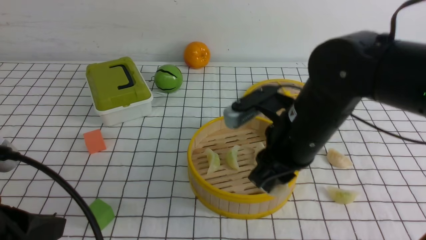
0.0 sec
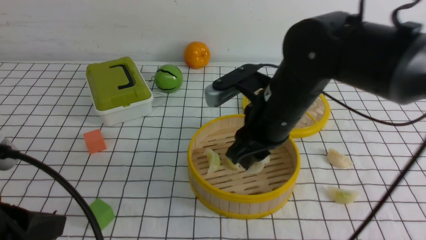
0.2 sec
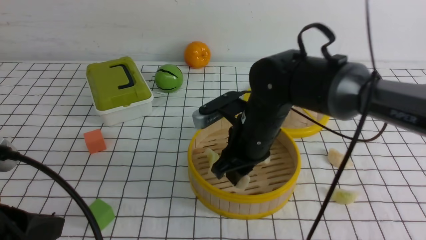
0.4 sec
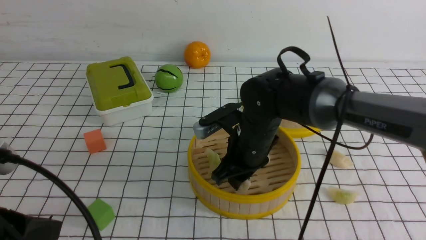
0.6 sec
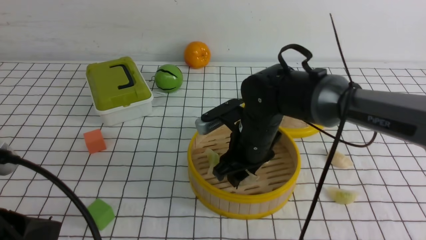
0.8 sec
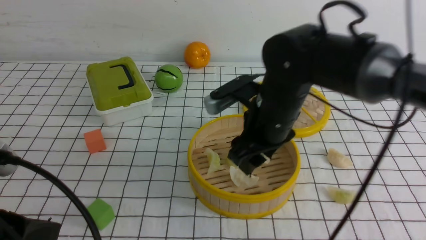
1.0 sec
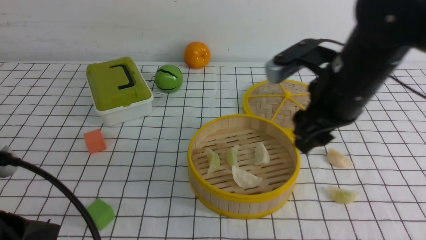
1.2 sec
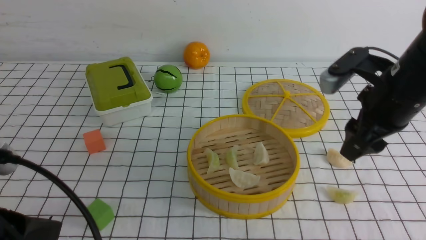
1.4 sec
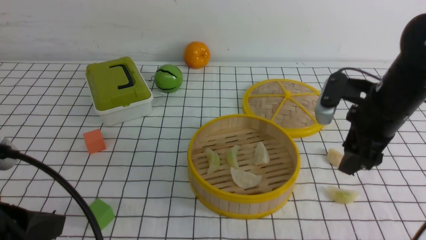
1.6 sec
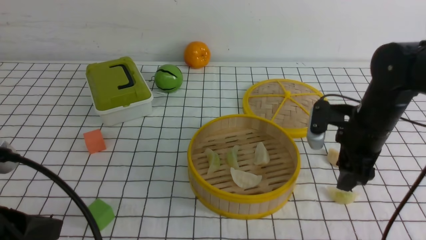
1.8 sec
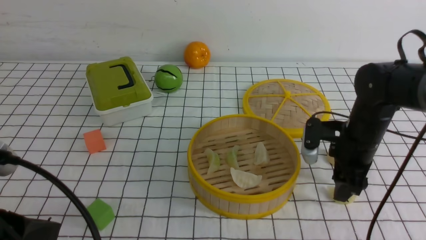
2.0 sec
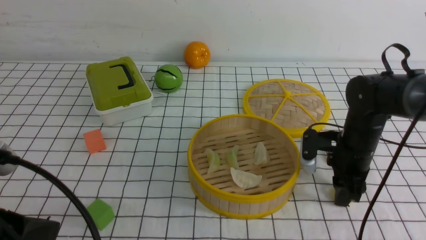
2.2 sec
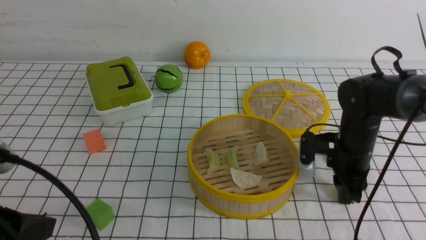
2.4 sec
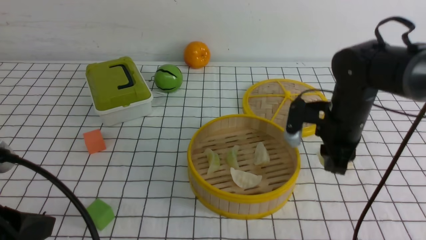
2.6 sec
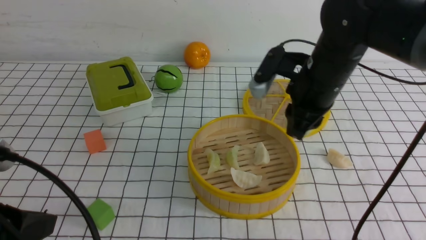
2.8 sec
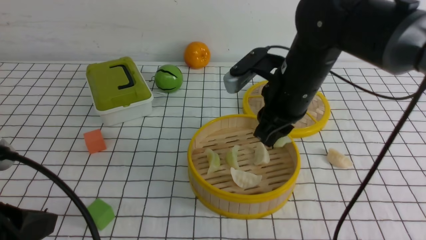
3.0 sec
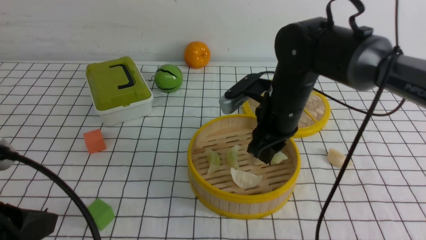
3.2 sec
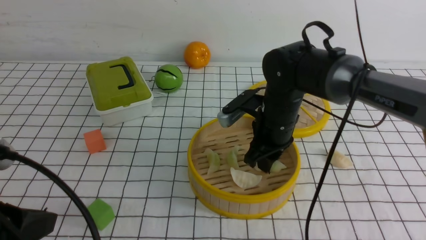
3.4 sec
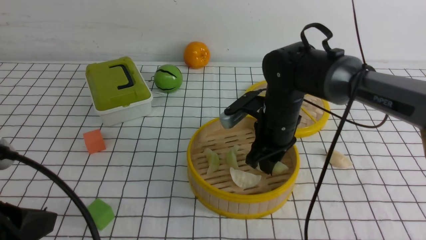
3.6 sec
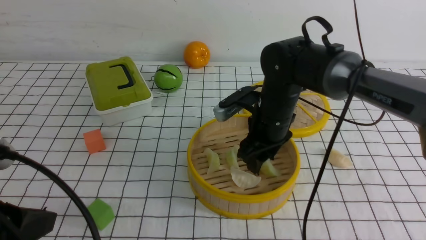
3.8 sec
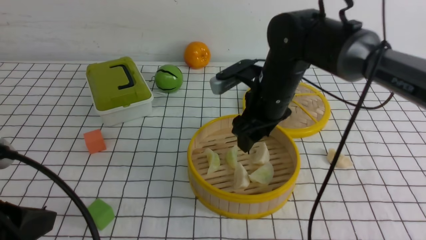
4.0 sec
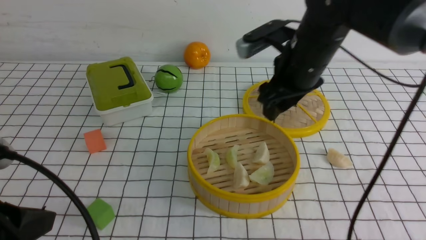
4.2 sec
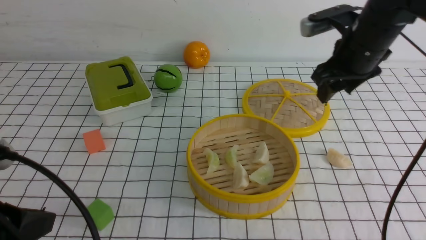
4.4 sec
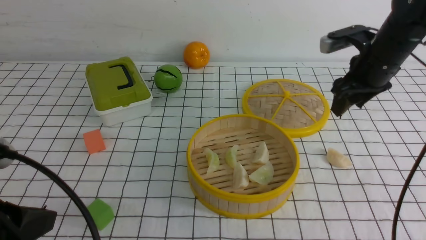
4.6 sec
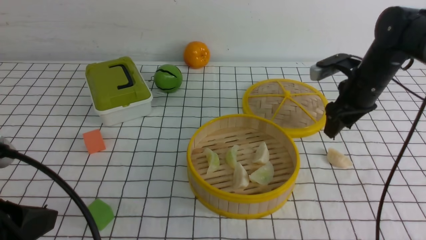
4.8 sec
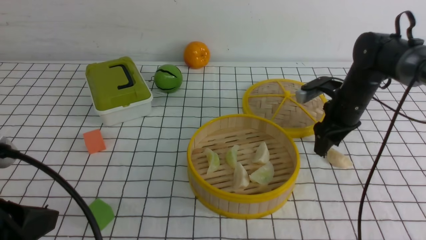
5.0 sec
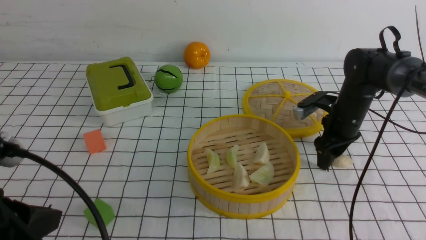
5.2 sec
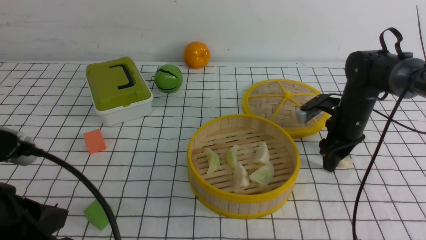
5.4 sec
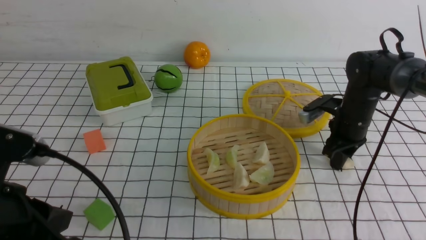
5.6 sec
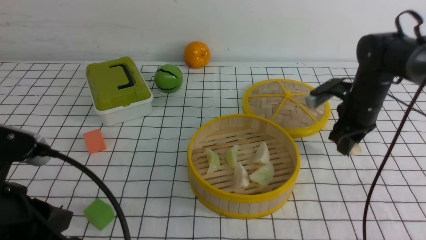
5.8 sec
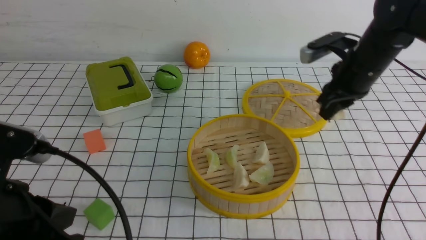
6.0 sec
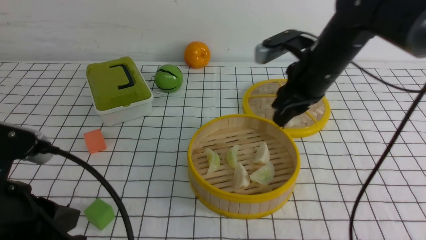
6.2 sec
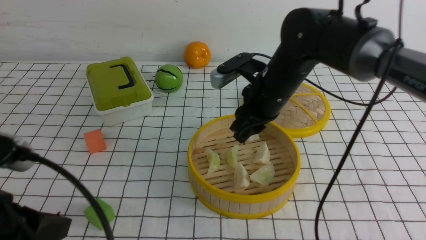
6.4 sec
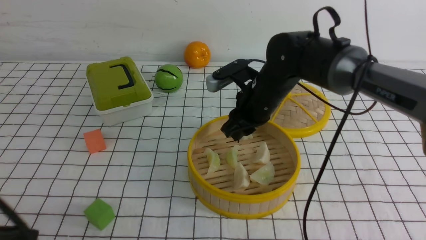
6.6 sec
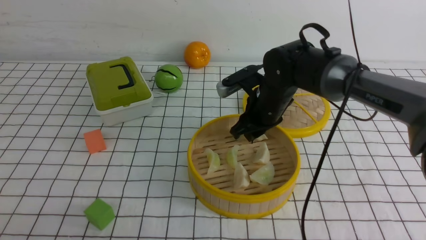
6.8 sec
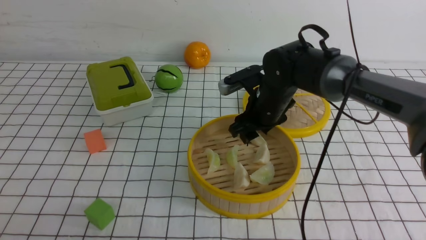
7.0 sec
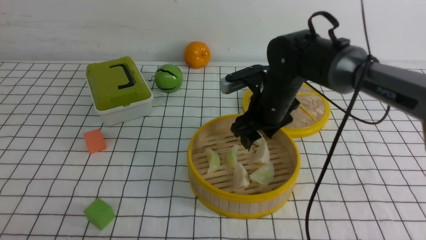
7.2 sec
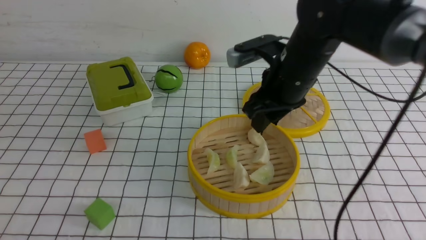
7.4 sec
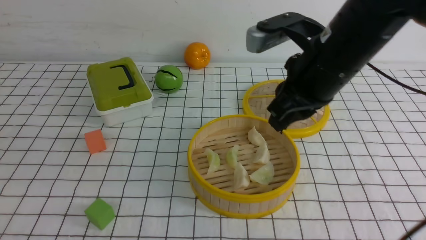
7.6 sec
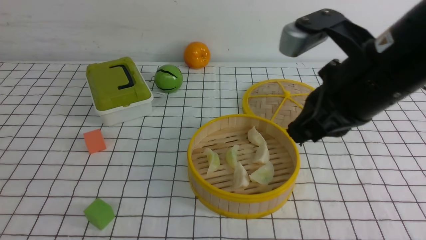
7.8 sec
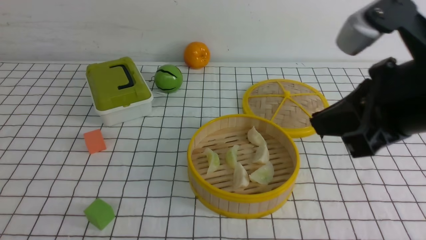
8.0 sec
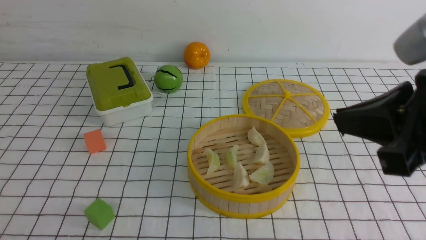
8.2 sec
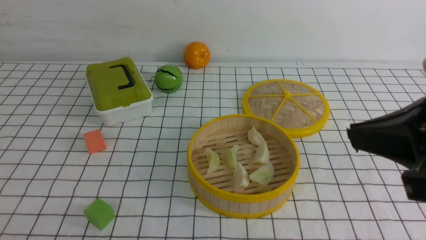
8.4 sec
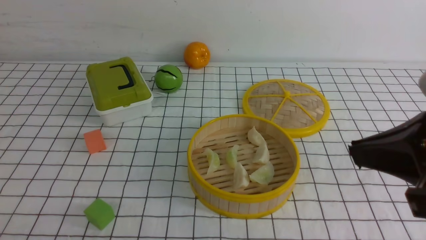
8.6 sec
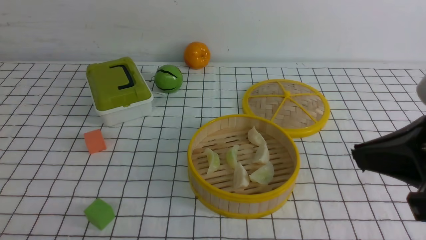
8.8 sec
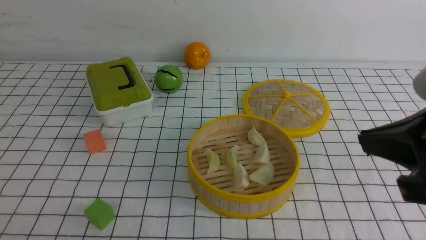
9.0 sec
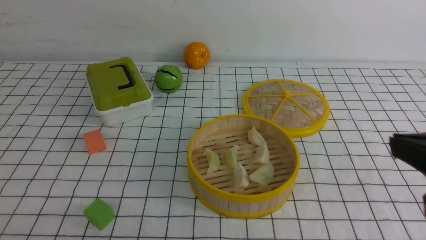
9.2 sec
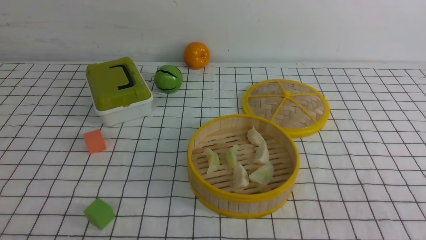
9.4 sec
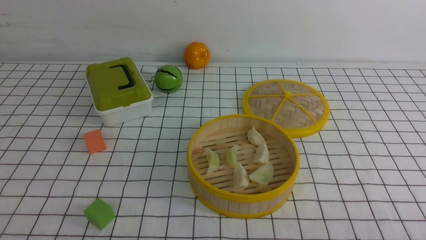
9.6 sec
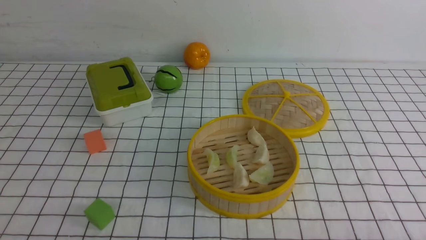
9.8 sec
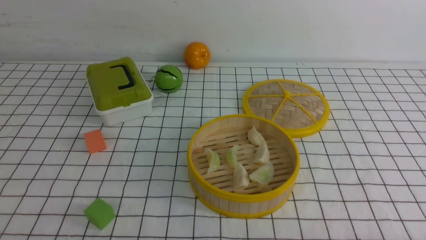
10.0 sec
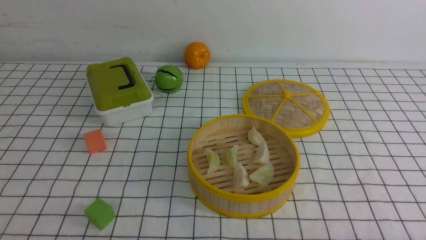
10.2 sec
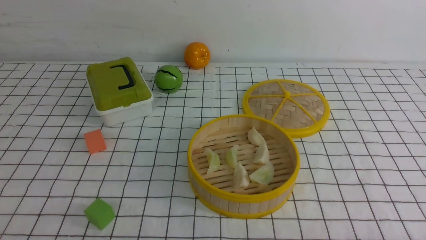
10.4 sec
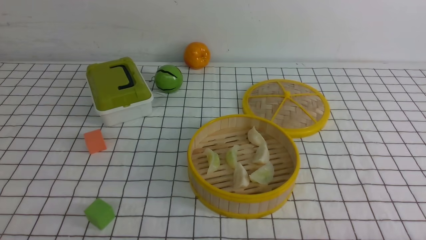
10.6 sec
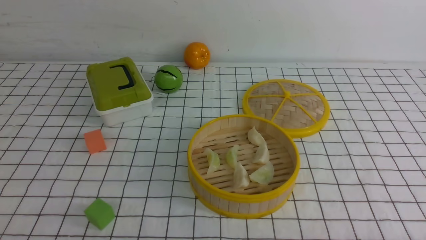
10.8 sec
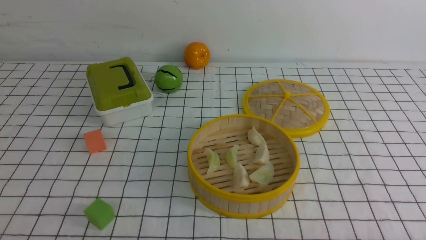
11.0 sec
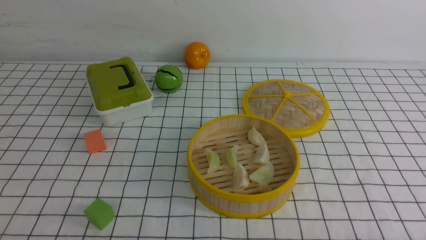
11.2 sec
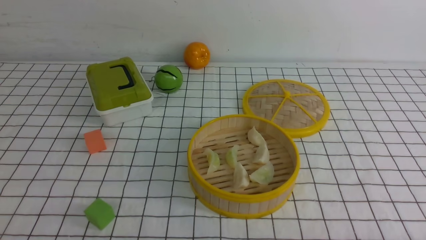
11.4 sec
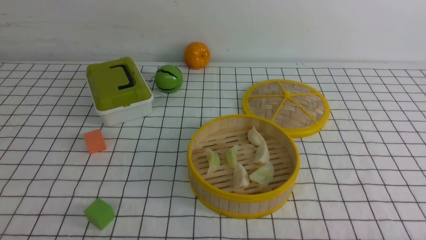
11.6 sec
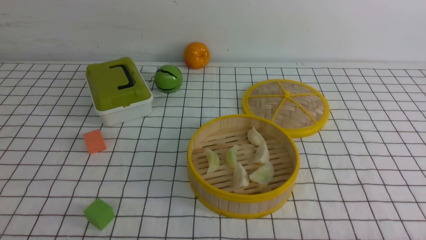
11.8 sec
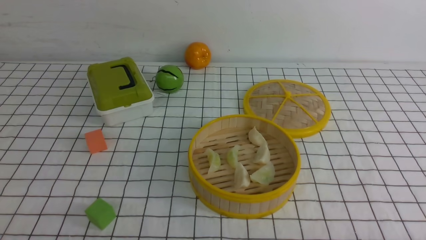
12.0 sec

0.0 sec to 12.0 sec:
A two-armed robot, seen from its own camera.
Task of the whole recording: put the dumplings into the steamer on the table with the white tablecloth.
Step, 0.2 sec to 1.0 sec: use the right arm to put the dumpling into the steamer.
Step, 1.2 sec to 2.6 sec: use the right arm to grab a dumpling.
Step, 2.8 sec to 4.2 sec: use the right arm to put the dumpling into the steamer.
Step, 4.4 sec to 6.0 sec: use the right arm to grab a dumpling.
Step, 6.2 sec to 7.4 sec: use the right arm to put the dumpling into the steamer.
0.0 sec to 1.6 sec: The right gripper heads to the right, covering some 15 cm, and opens up.
1.6 sec to 3.0 sec: The right gripper travels to the left by about 10 cm, and closes up.
3.0 sec to 4.4 sec: The right gripper is displaced to the right and forward by about 10 cm, and opens up.
4.4 sec to 6.0 sec: The right gripper goes downward and returns, some 15 cm each way, and closes.
6.0 sec to 7.6 sec: The right gripper travels backward, upward and to the left by some 15 cm, and opens, then closes once more. The left gripper moves backward and to the left, some 15 cm.
7.6 sec to 9.0 sec: The right gripper moves backward and to the right, about 20 cm.
9.0 sec to 10.4 sec: The right gripper moves downward, to the right and backward, some 25 cm.

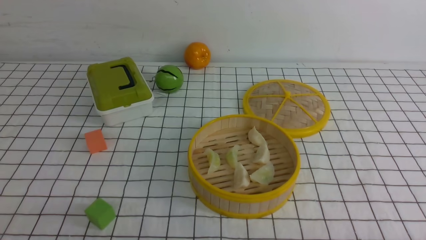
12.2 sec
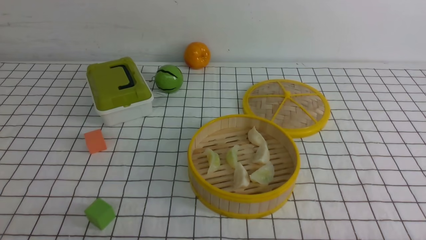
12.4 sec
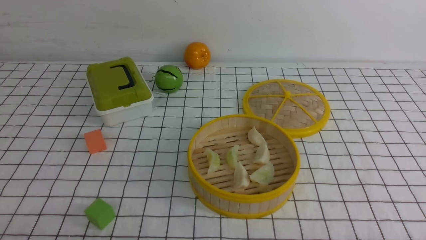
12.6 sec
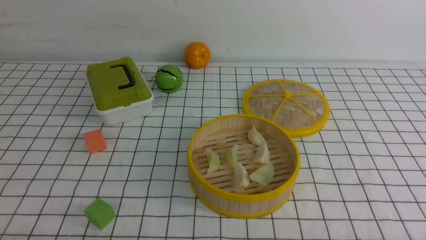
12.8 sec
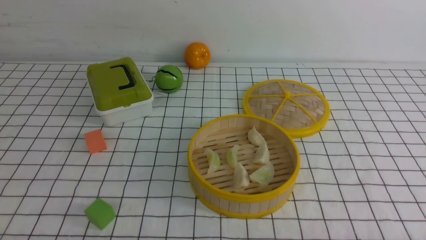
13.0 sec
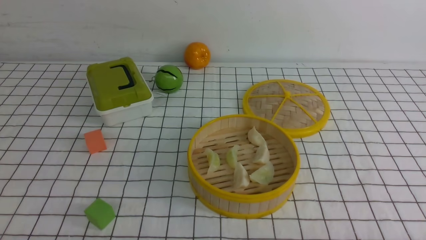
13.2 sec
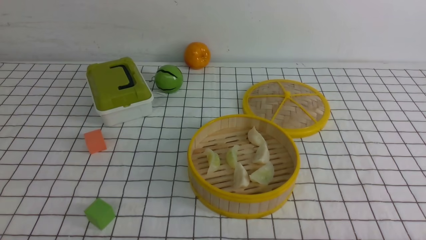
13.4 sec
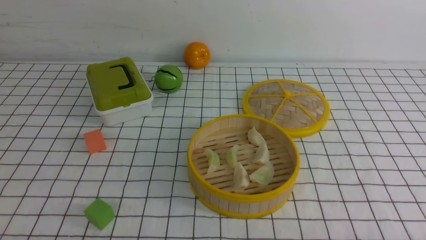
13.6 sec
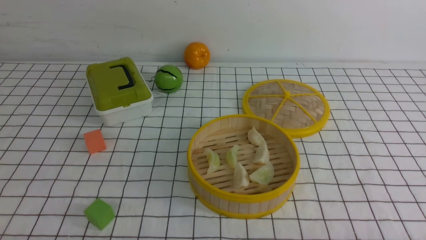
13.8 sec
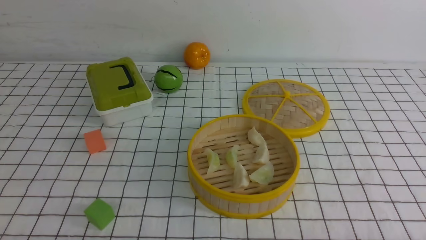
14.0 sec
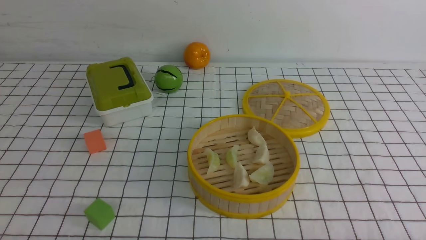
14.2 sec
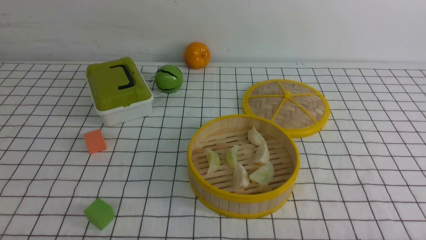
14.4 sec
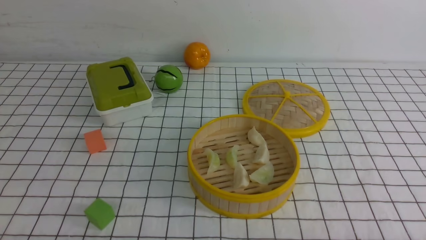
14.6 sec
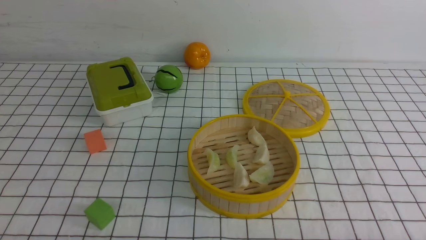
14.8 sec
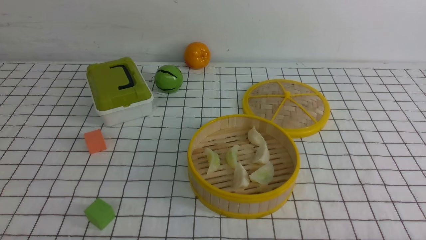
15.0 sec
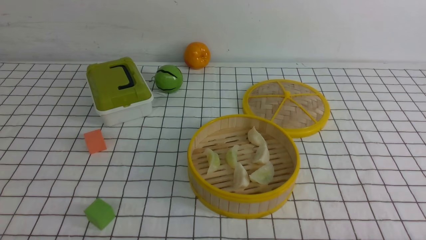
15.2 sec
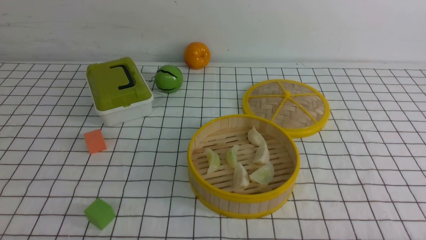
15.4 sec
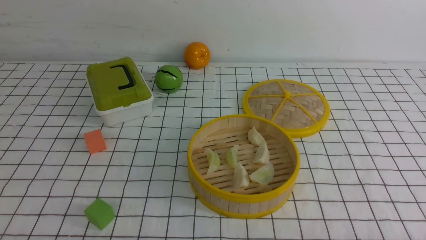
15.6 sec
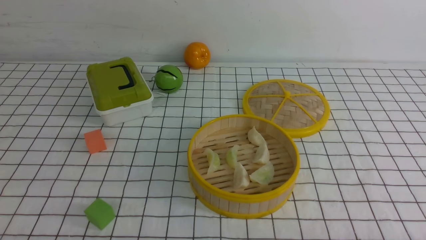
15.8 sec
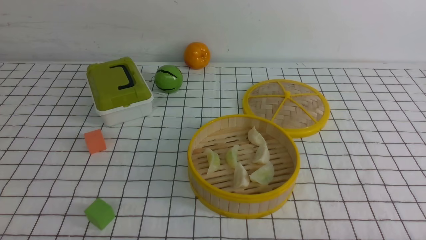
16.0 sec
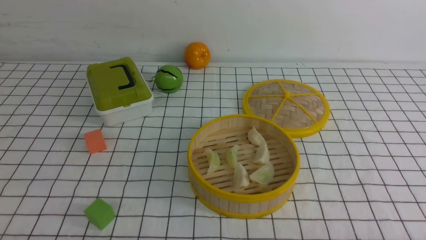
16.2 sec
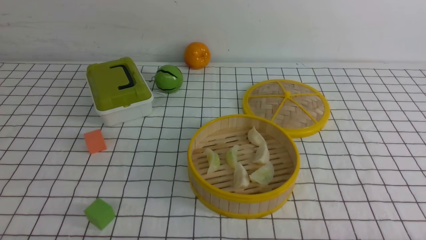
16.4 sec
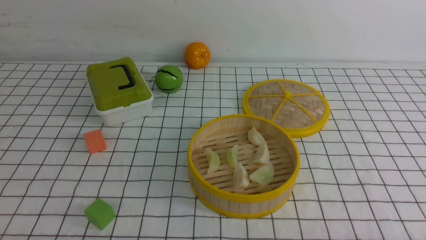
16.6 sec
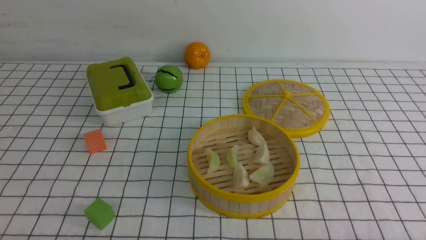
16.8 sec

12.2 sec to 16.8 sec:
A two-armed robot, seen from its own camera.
Task of the whole recording: put the dumplings into the steamer on the table with the white tablecloth.
13.8 sec to 16.8 sec: The two grippers keep their place.
